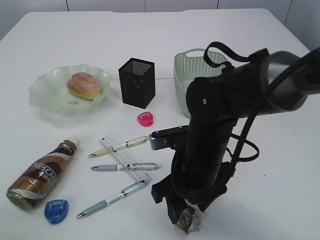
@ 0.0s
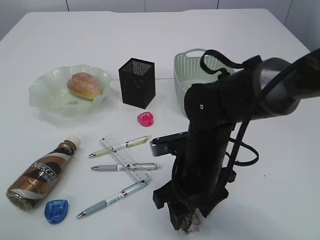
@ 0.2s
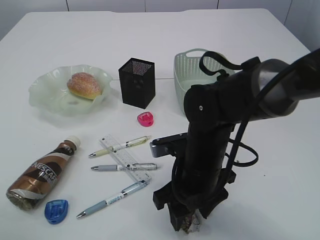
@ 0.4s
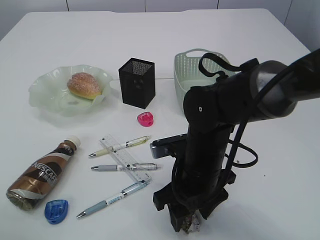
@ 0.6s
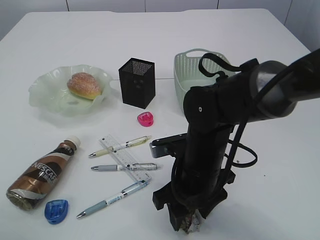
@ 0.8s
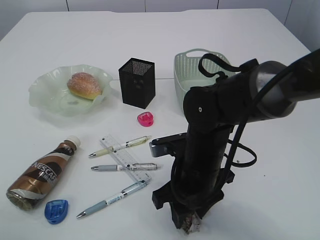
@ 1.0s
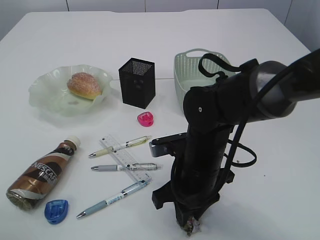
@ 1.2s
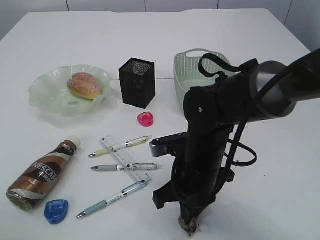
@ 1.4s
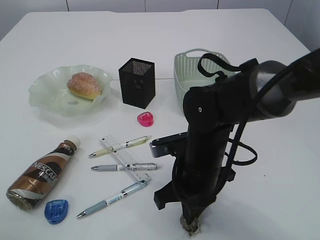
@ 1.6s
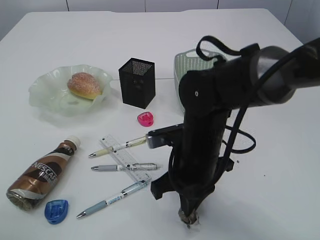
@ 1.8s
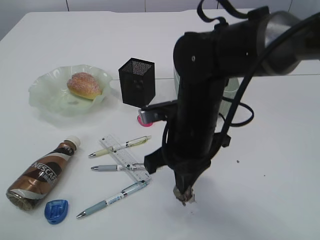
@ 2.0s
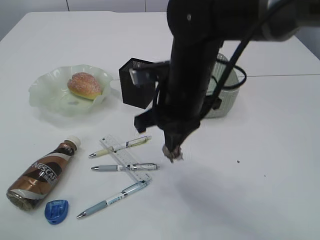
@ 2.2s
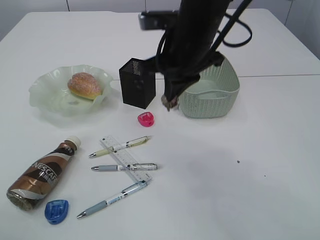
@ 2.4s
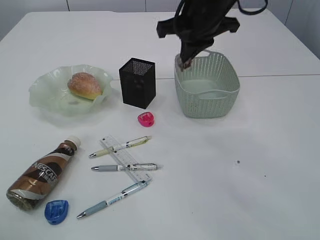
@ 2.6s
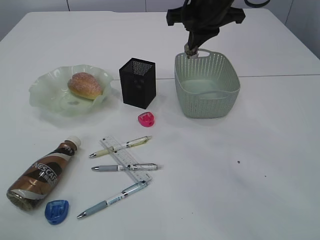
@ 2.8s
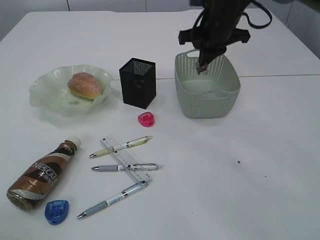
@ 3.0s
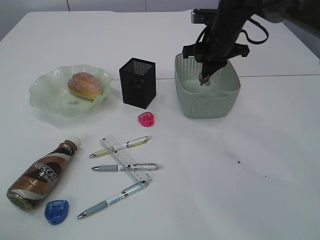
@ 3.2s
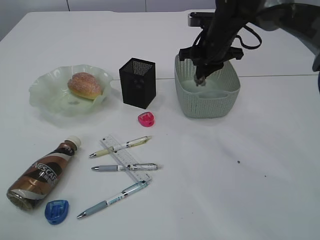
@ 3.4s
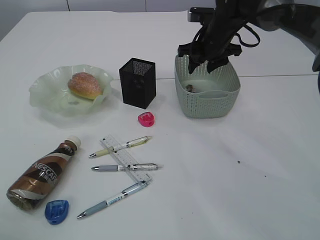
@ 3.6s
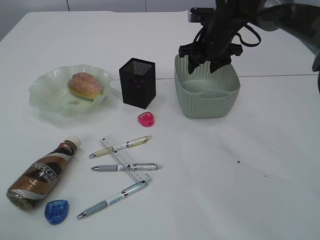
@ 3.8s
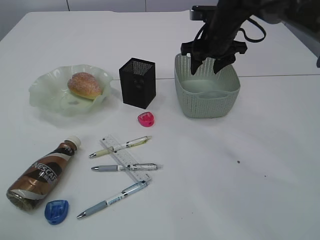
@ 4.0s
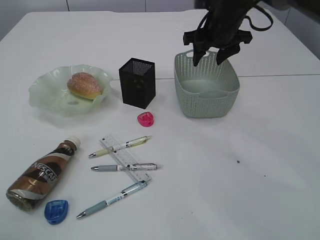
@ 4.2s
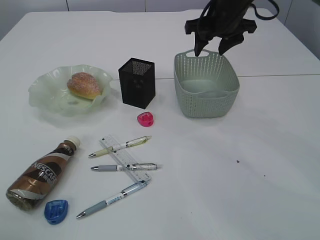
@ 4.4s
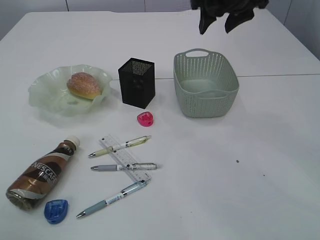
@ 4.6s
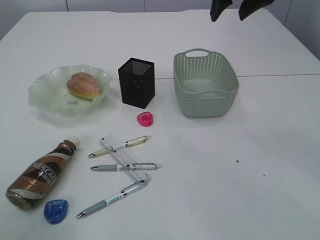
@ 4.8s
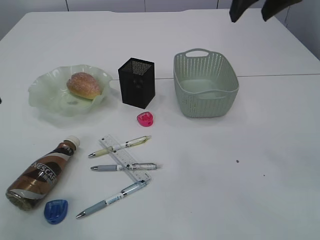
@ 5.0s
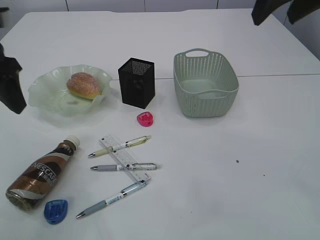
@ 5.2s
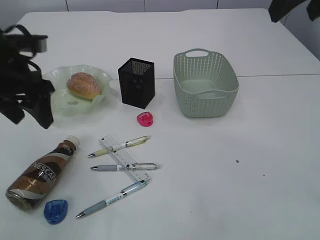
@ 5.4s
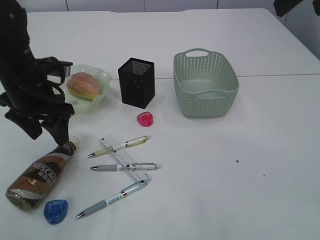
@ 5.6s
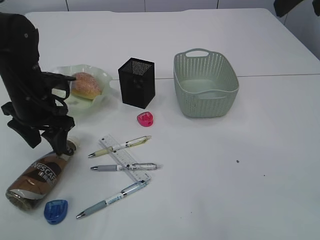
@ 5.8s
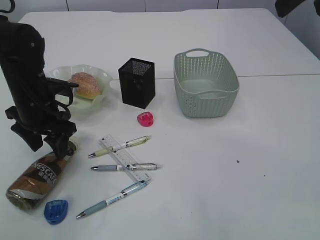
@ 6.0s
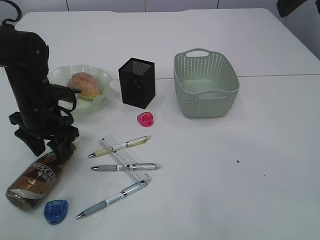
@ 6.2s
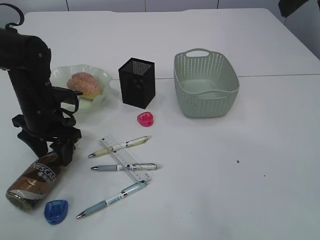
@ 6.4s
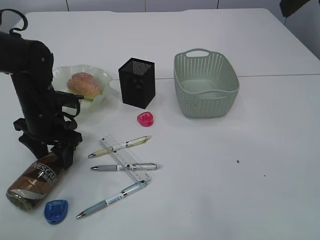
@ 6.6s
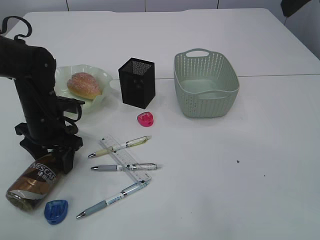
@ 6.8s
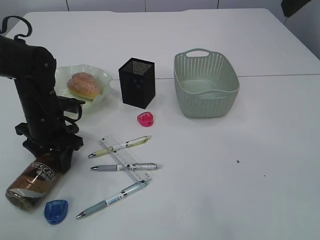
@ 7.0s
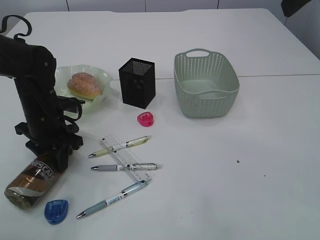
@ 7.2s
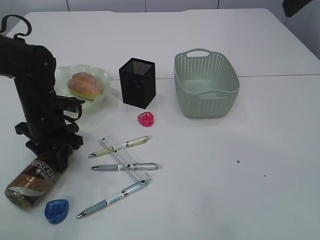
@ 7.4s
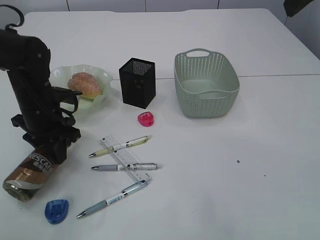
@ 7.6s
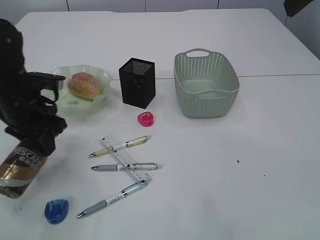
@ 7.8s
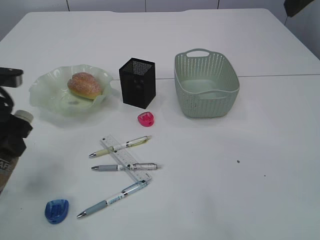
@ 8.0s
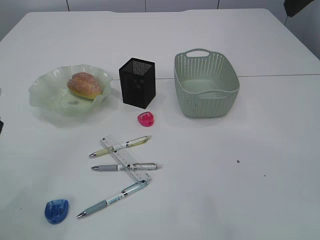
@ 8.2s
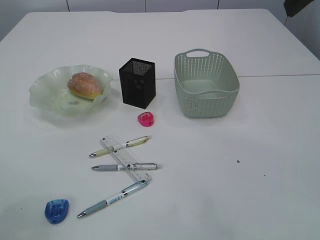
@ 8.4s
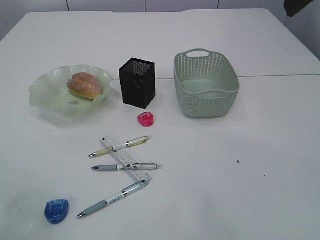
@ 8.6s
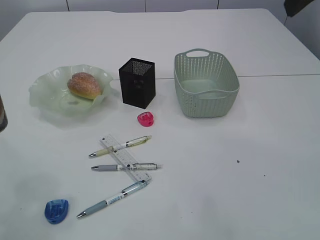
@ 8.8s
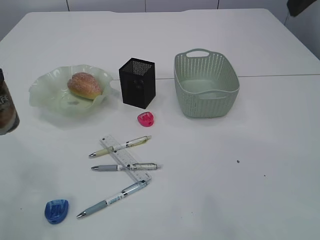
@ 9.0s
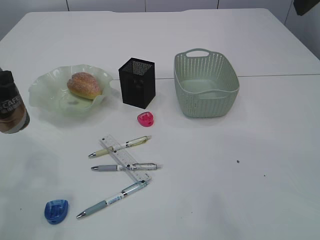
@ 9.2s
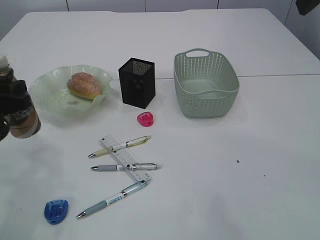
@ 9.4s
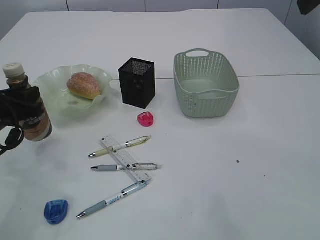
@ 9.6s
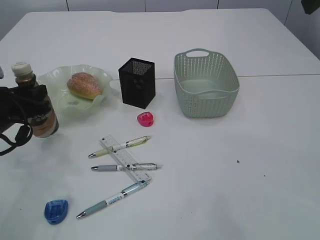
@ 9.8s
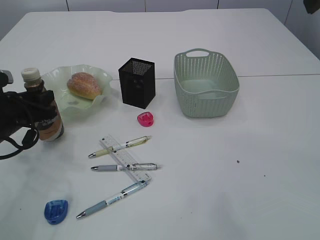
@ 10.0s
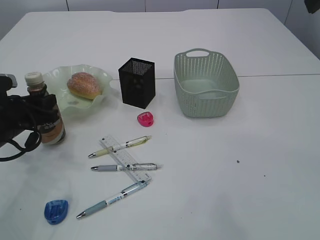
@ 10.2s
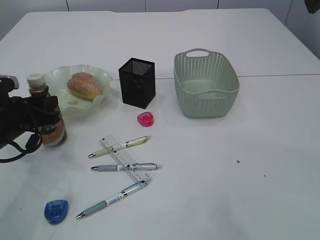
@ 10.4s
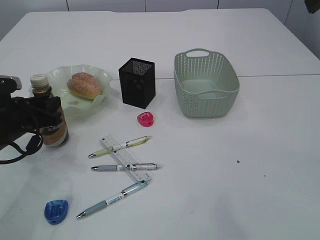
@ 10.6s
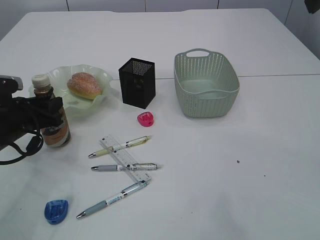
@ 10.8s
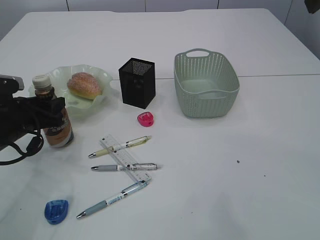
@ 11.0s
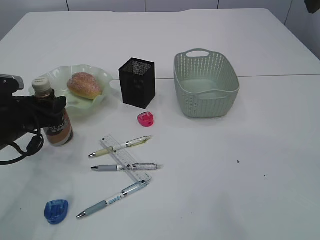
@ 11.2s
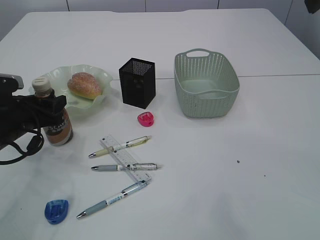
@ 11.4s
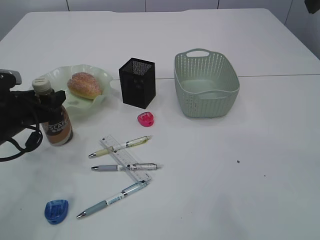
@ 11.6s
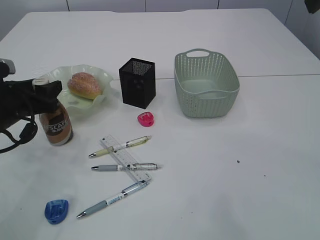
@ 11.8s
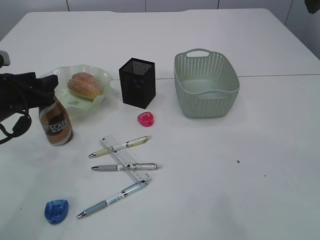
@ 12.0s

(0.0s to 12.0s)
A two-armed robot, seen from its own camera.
Step, 0.0s - 2.0s: Pick up the plastic.
Step, 2.2s - 3.8s: Place the plastic in the basket.
Step, 4.0s - 7.8s: Pick up the bottle with the left arm.
0.0s - 1.6s: The right gripper closes.
1.6s - 3.0s: The right gripper is displaced forward and upward by about 25 cm.
3.0s - 4.4s: The right gripper opens its fingers.
4.4s - 6.0s: The right gripper heads backward and upward, covering approximately 25 cm, while the left gripper shifts roughly 25 cm forward and downward.
6.0s - 7.6s: The left gripper closes up.
7.6s - 9.0s: The left gripper shifts some 20 cm backward, upward and to the left.
9.0s - 10.4s: The left gripper moves downward and forward, about 15 cm.
10.4s - 12.0s: The left gripper shifts by some 5 cm.

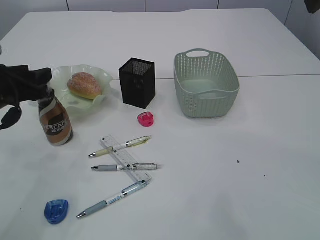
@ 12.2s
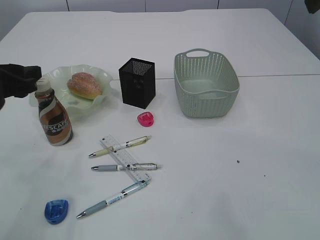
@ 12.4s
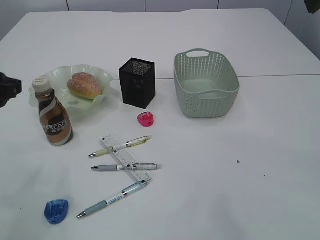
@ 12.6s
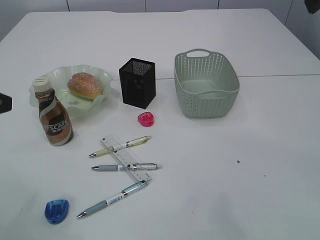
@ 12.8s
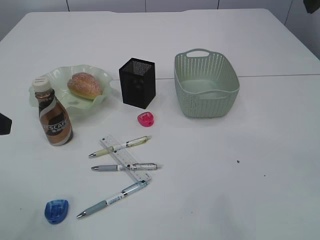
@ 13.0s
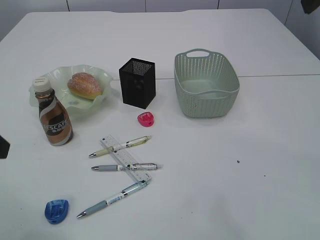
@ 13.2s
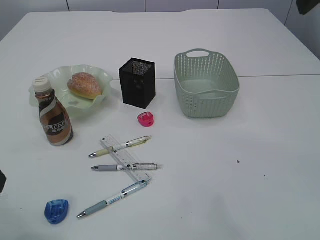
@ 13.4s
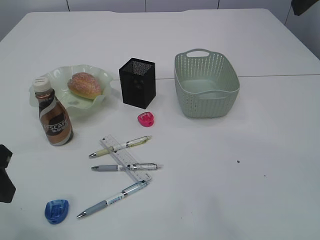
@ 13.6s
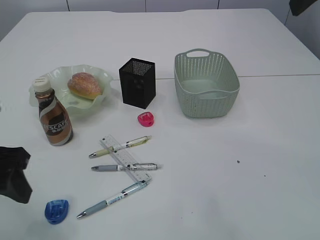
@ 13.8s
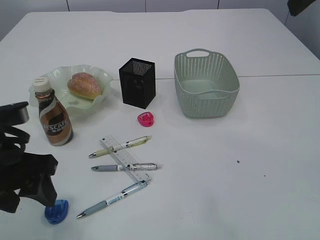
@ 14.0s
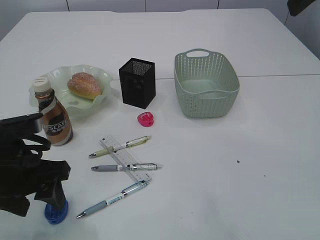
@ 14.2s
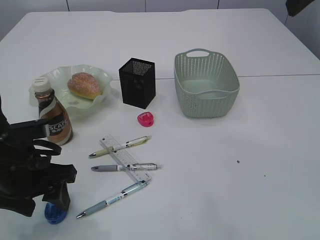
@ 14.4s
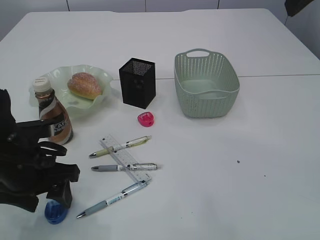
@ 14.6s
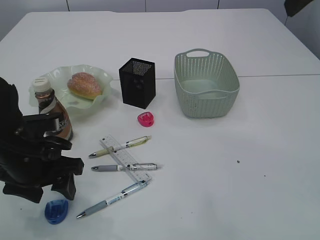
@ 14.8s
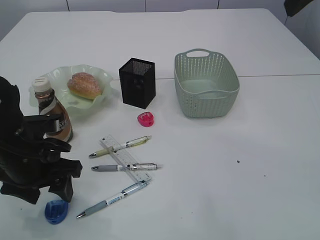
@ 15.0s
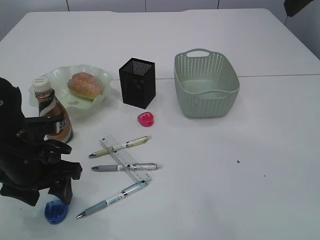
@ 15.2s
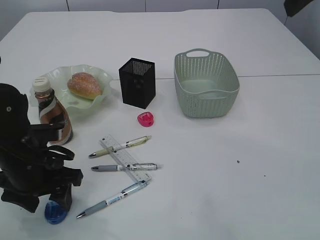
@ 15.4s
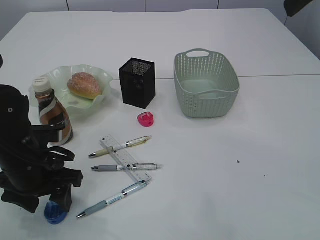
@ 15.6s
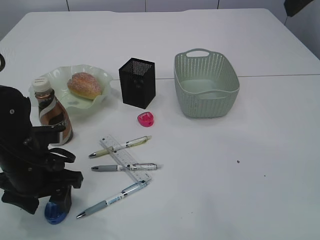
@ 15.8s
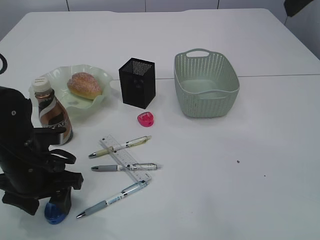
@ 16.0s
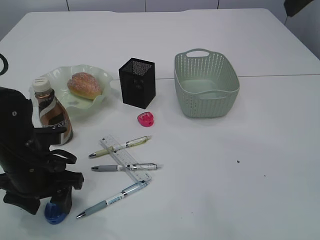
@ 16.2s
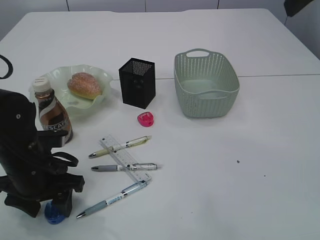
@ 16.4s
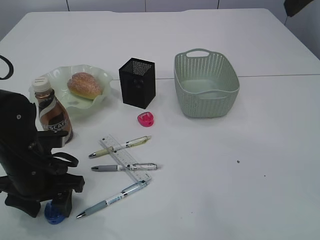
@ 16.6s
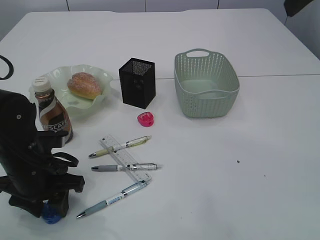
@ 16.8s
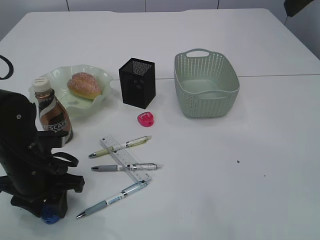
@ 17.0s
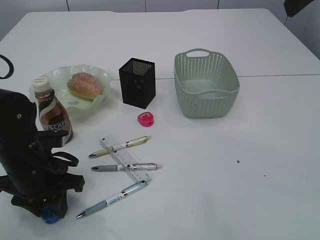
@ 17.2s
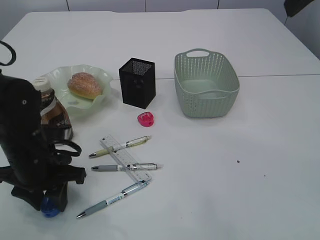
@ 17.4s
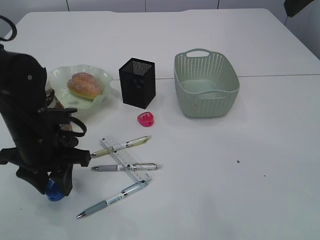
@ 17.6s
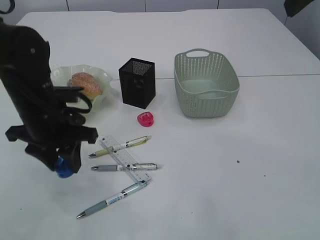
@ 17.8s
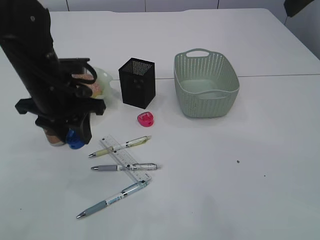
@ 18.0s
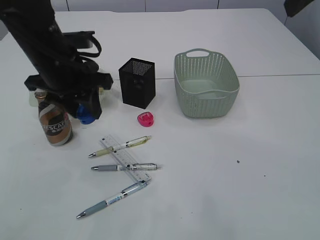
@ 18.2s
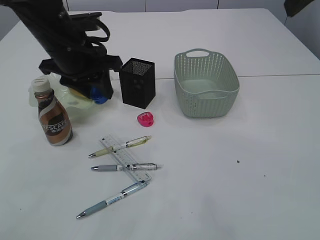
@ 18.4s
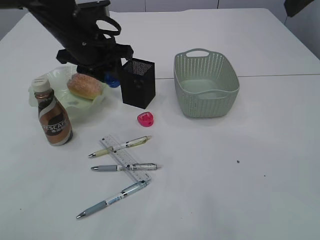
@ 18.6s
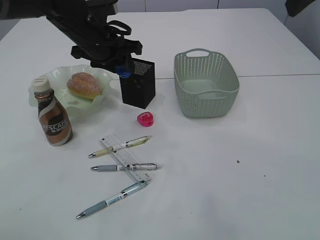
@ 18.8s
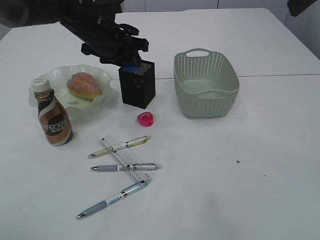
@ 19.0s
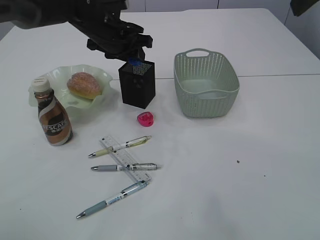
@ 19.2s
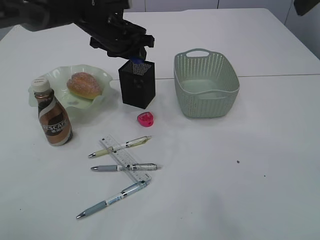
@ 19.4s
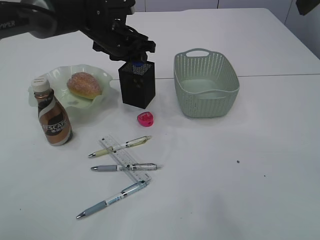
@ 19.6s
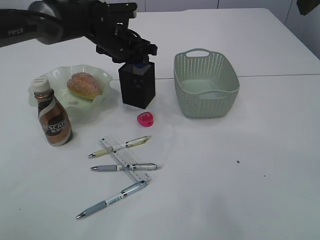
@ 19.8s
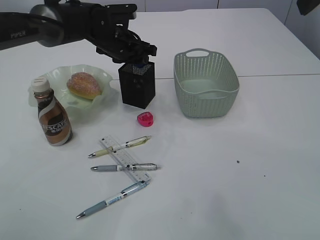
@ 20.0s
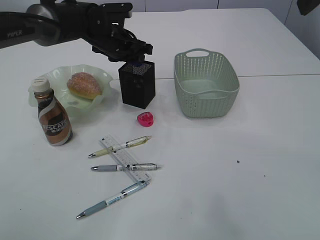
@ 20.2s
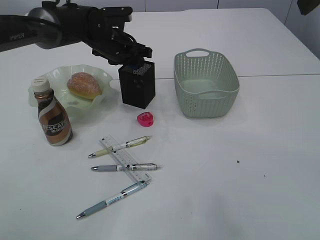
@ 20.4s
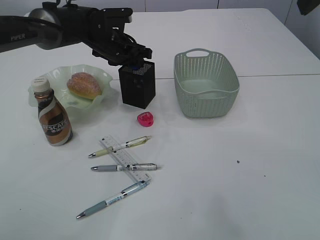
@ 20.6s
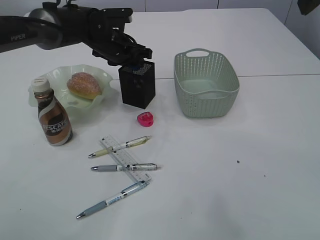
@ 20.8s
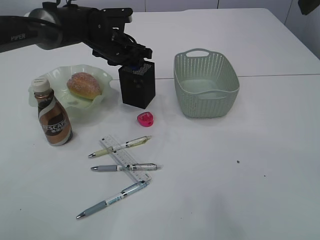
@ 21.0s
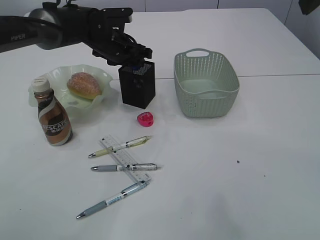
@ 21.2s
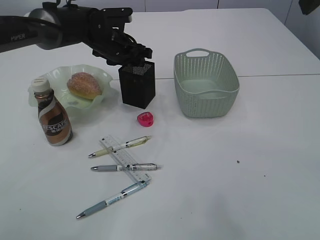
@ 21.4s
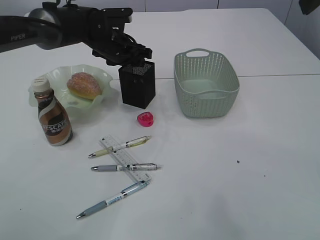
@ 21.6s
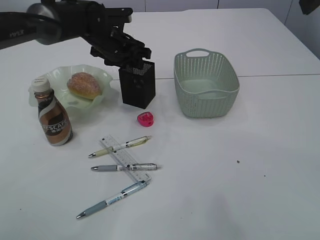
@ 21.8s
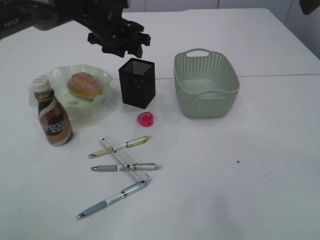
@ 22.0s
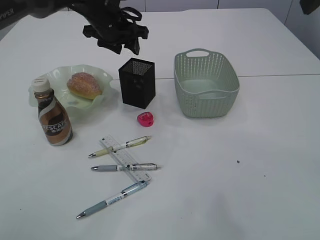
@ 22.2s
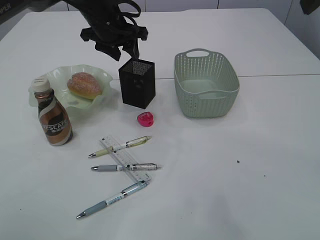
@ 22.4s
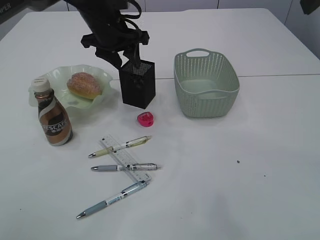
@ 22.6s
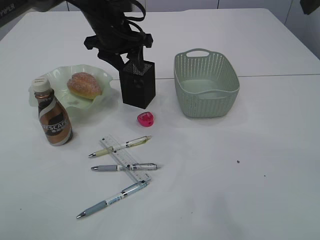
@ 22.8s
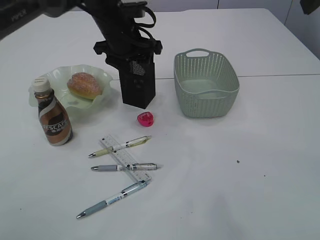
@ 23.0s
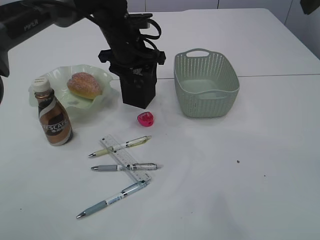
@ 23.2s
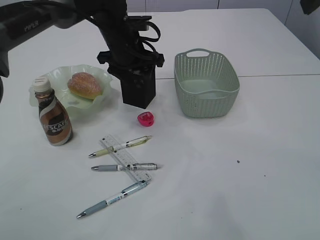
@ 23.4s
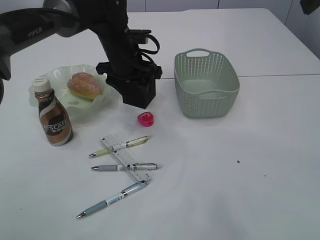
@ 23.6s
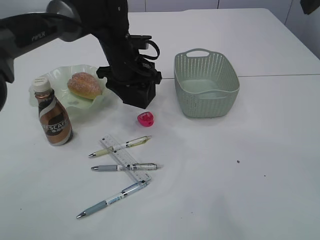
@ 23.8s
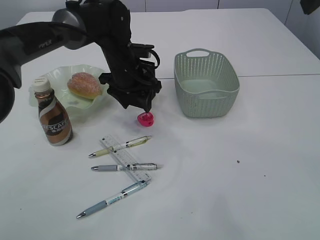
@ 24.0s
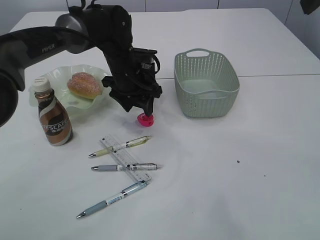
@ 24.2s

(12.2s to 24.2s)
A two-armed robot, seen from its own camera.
Step, 12.6s - 17.6s: Pick up the blue pencil sharpener.
Step, 17.8s - 22.0s: Place the blue pencil sharpener into the pen holder.
12.2s - 13.8s: The left gripper travels backward by roughly 10 cm.
13.8s - 15.2s: The left gripper moves downward and forward, approximately 10 cm.
15.2s - 16.6s: There are only small adjustments of the grippers.
16.6s - 18.2s: The left gripper moves upward and forward, roughly 15 cm, and closes its fingers.
18.2s - 19.8s: The left gripper travels forward and to the right by approximately 15 cm.
19.8s - 21.2s: The grippers stay close to where they were, moving slightly.
21.2s - 22.6s: The left gripper shifts some 5 cm upward.
22.6s - 24.2s: The left gripper goes about 10 cm downward.
